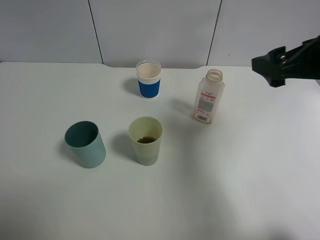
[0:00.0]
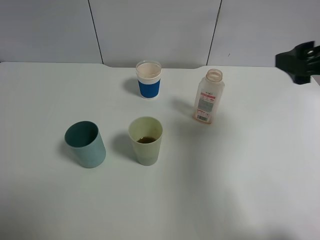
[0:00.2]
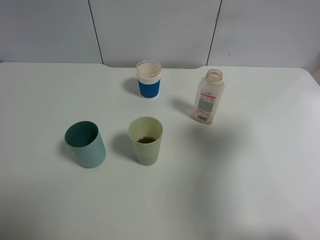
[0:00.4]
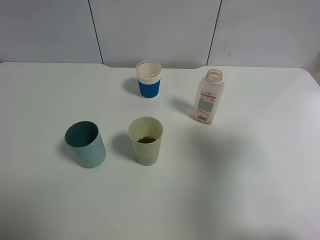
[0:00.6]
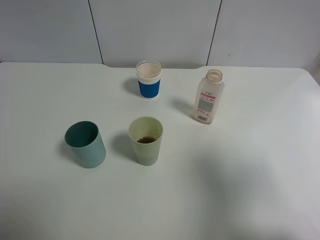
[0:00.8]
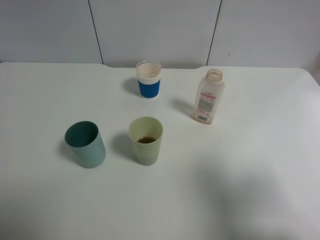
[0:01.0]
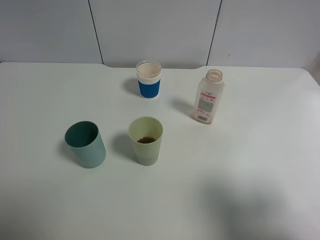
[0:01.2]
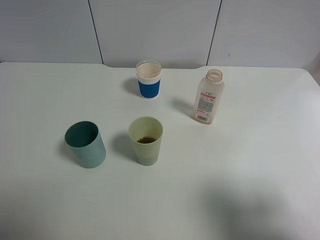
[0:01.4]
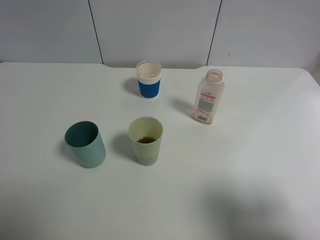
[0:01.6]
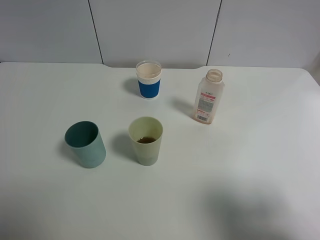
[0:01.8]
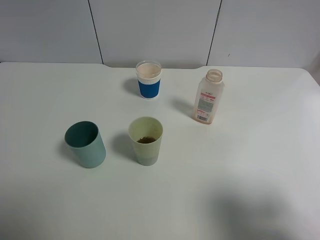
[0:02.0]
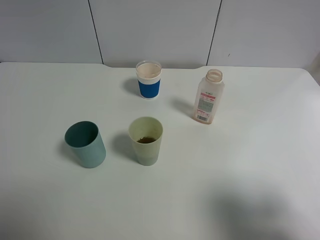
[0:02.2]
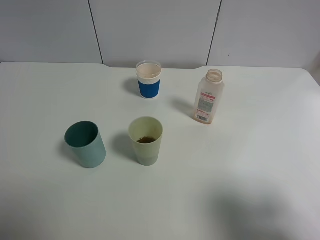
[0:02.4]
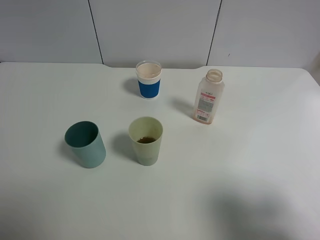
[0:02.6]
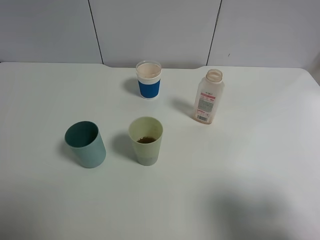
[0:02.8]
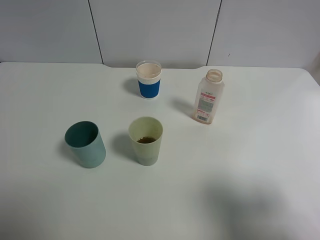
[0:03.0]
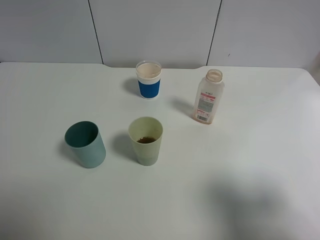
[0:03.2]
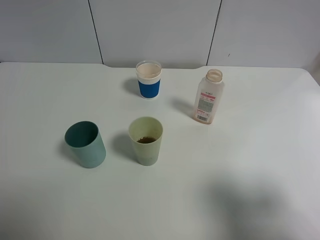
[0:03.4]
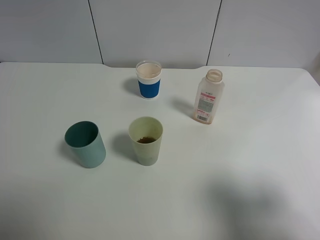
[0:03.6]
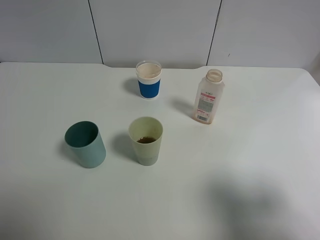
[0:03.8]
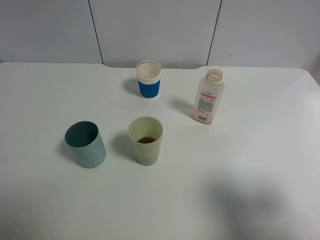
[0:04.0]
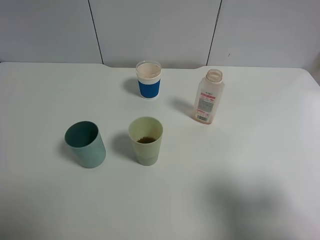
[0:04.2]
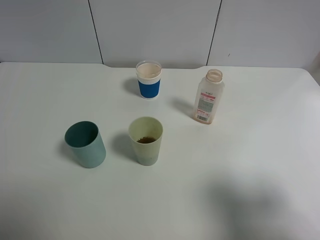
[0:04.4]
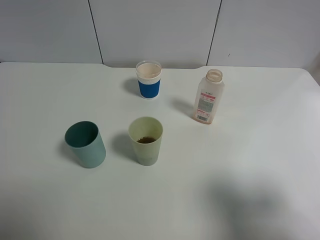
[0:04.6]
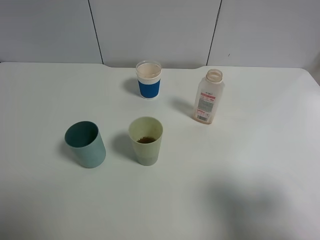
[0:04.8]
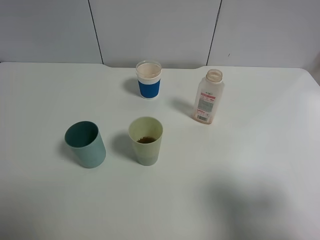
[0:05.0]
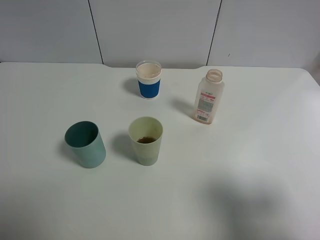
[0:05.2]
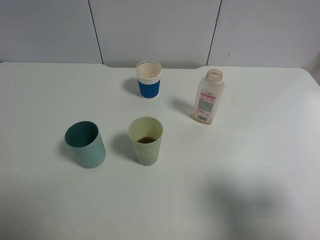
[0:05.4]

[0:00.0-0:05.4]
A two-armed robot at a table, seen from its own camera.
Task of the whole recording: use a gripper to hold the bottle of the drink and pour it into a random cup.
0:00.0 to 0:01.4: The right gripper goes roughly 20 cm backward.
0:04.0 to 0:05.4: Neither gripper changes place.
